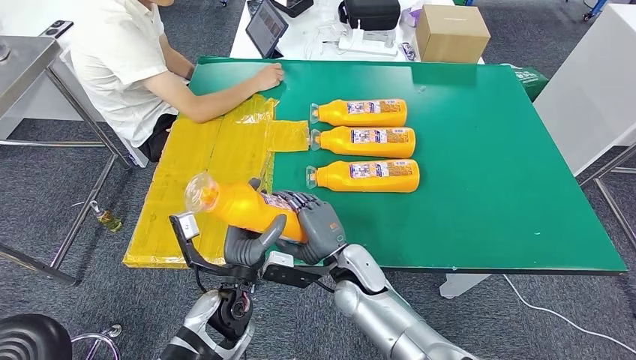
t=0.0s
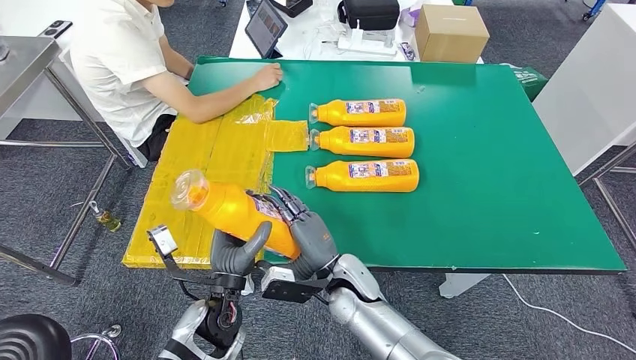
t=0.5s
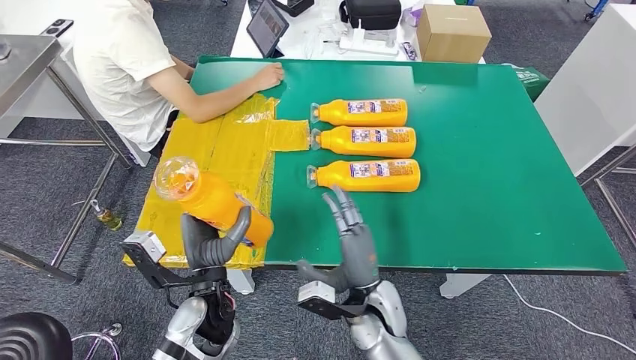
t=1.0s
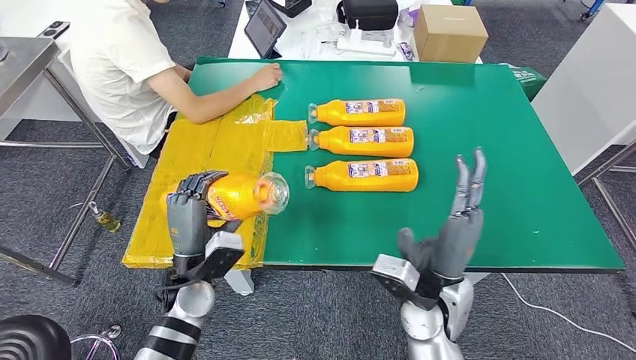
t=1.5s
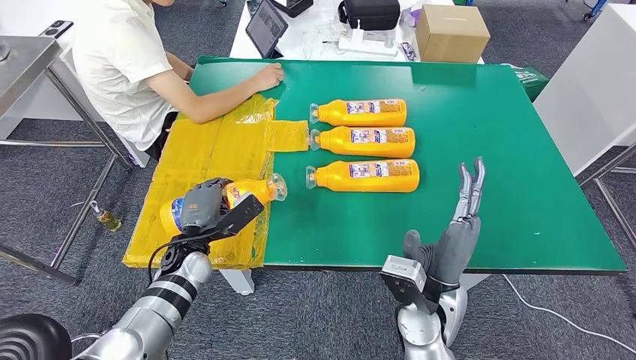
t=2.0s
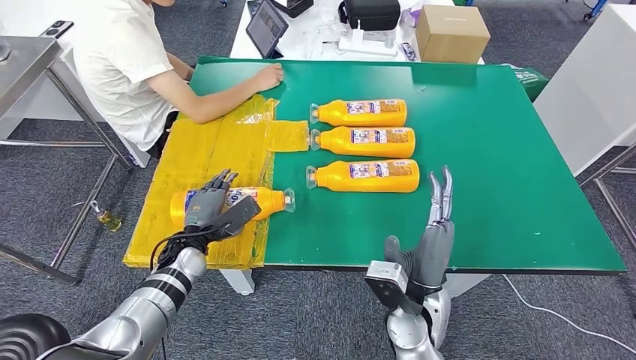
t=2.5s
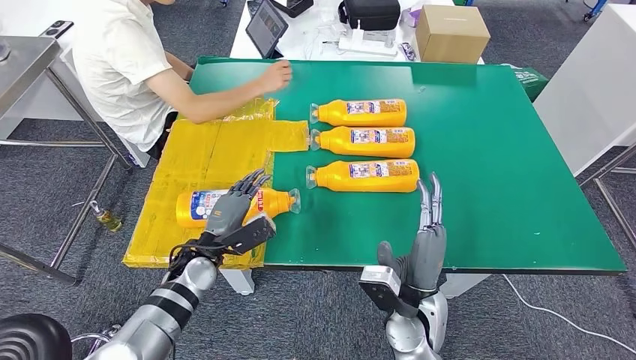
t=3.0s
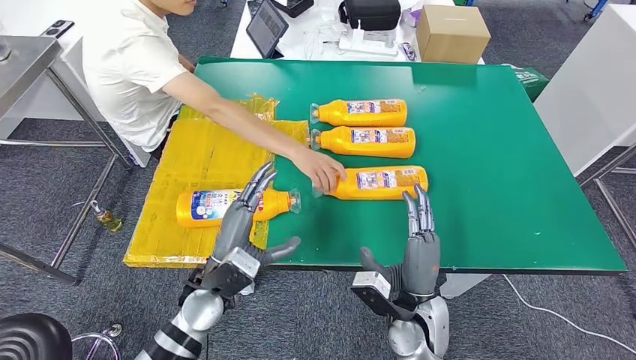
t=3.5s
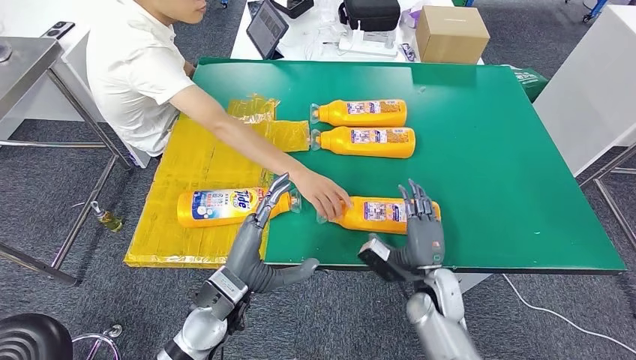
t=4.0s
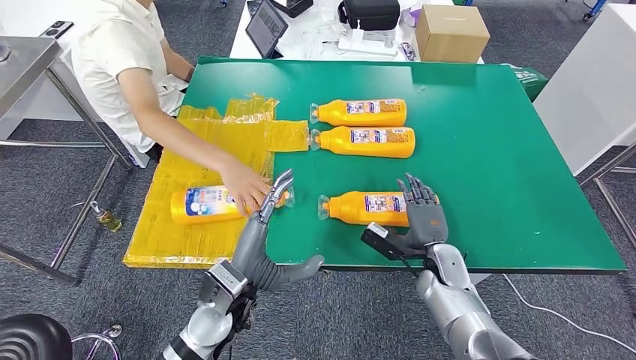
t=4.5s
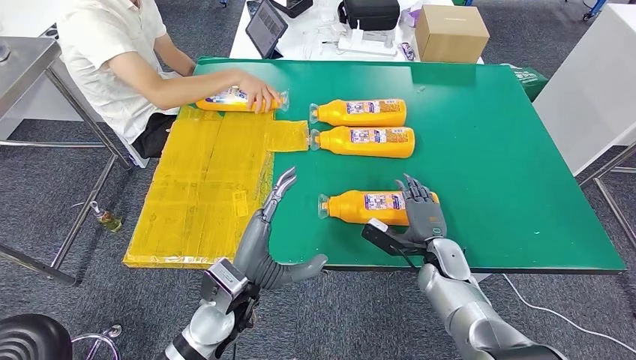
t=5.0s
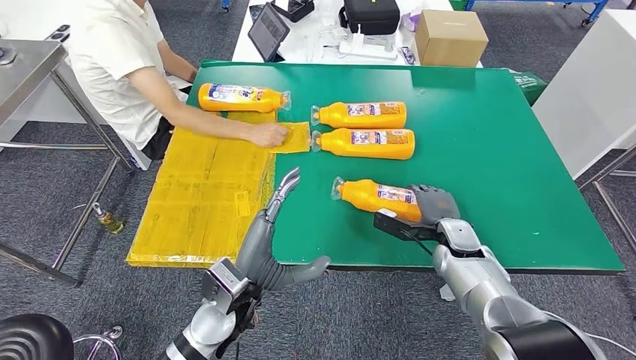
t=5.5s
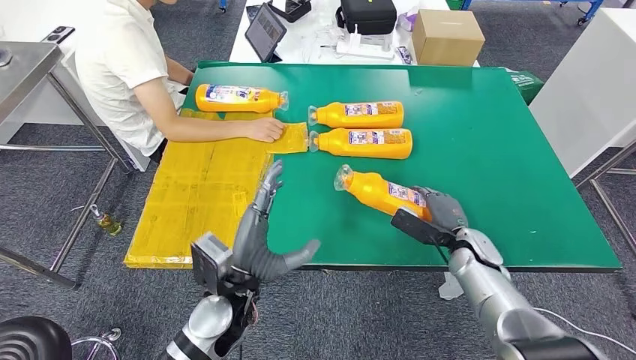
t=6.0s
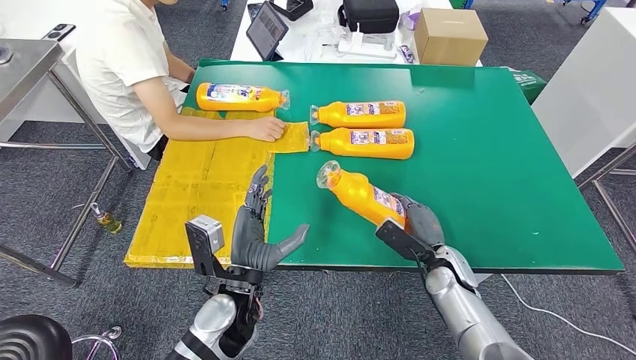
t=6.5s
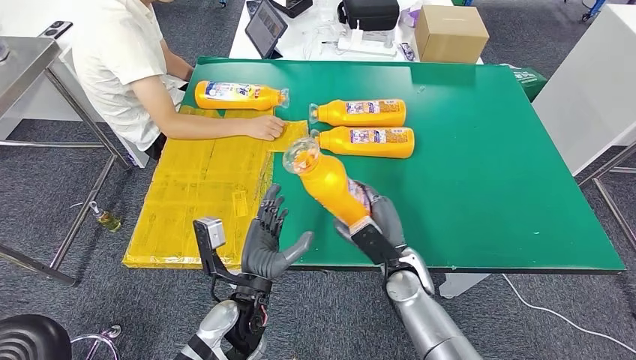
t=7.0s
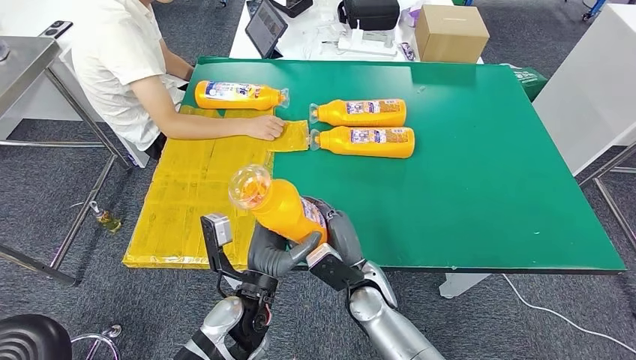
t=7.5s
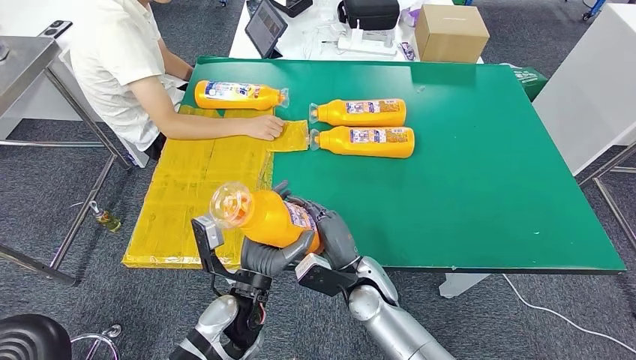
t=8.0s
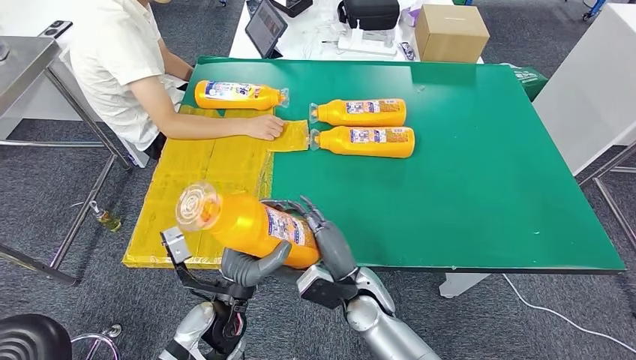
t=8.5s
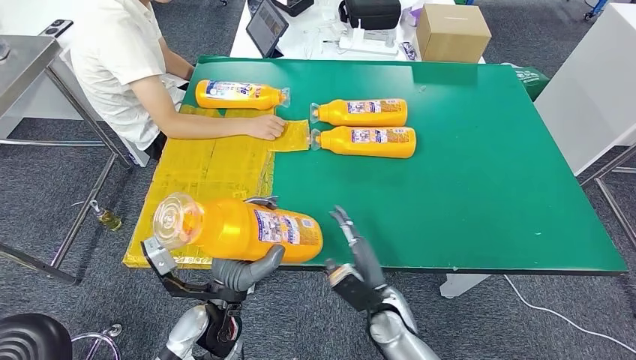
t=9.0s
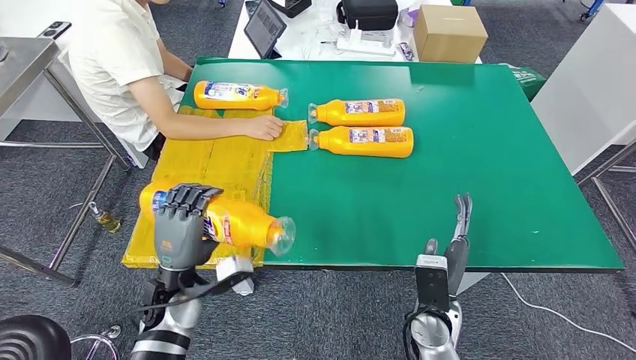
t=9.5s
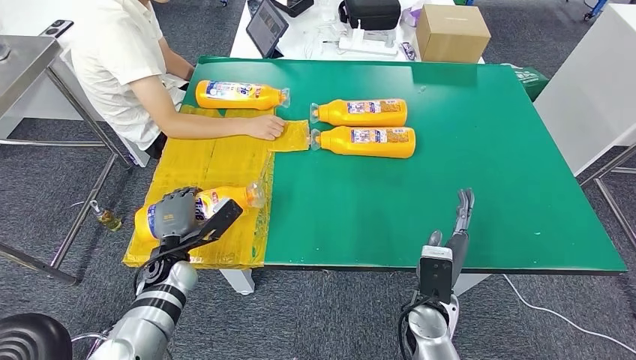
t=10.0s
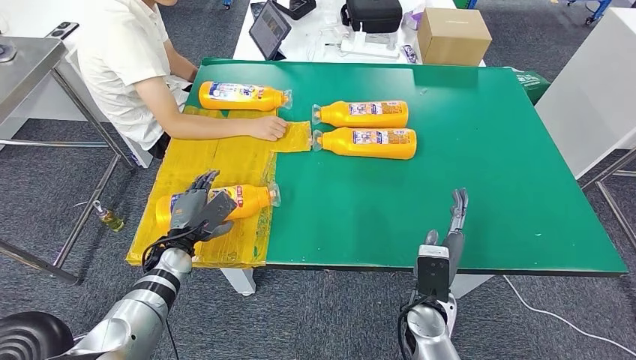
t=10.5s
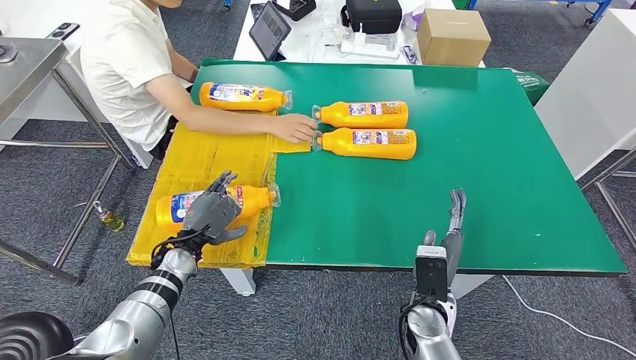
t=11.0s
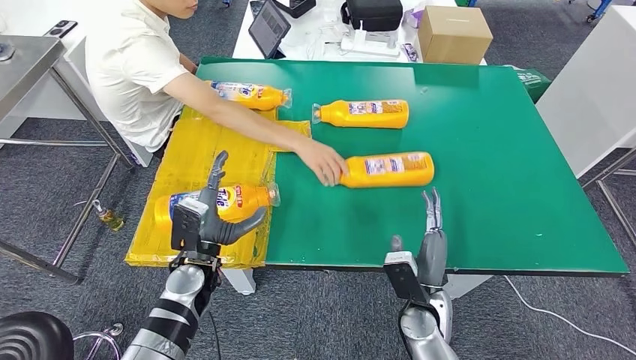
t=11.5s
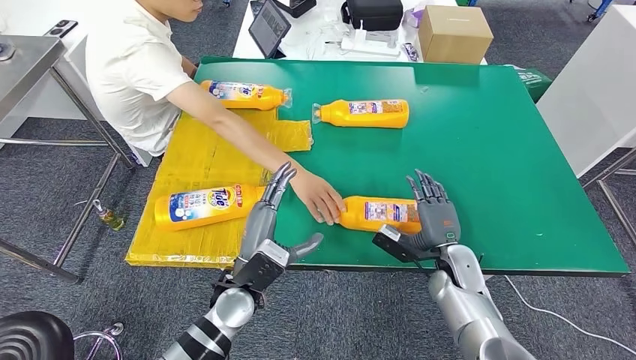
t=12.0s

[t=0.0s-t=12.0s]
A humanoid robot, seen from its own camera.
Step, t=0.0s to t=2.5s: Flip the fast-moving consumer goods bottle to the front side.
Step, t=3.0s to t=6.0s: Pick up the fast-moving consumer goods bottle from the table.
Step, t=7.0s to t=11.5s: Flip the fast-moving consumer goods bottle to the front side.
t=0.0s to t=2.0s: The left hand heads to the left and forward, covering approximately 15 cm, while the right hand heads to the right, upward and backward, covering roughly 15 cm.
t=8.0s to t=10.0s: The left hand travels to the left and forward by roughly 20 cm. Meanwhile the right hand goes approximately 10 cm to the right.

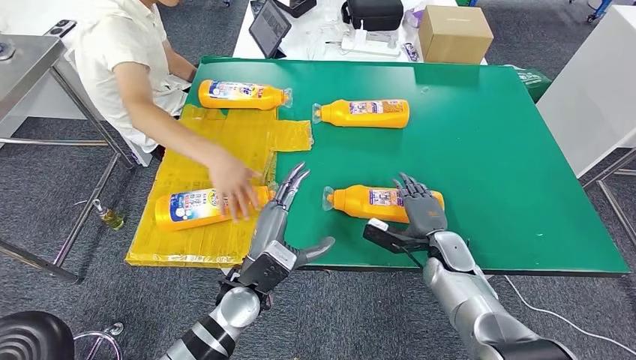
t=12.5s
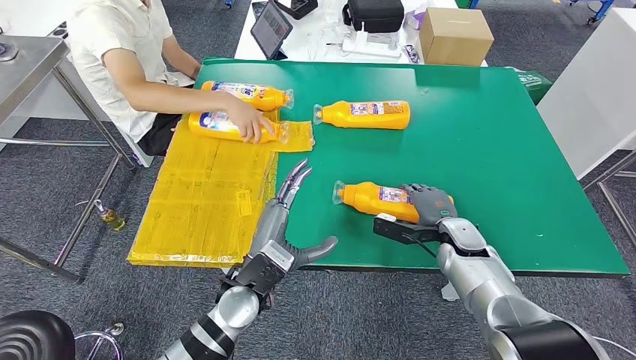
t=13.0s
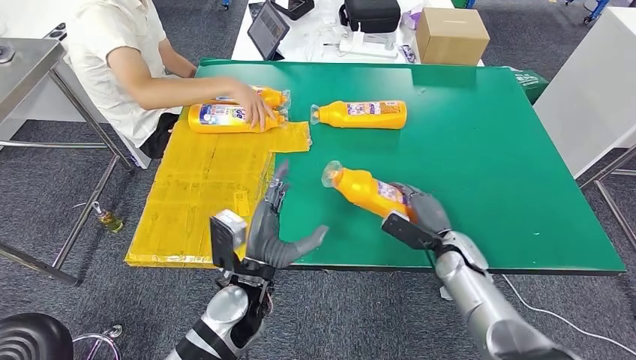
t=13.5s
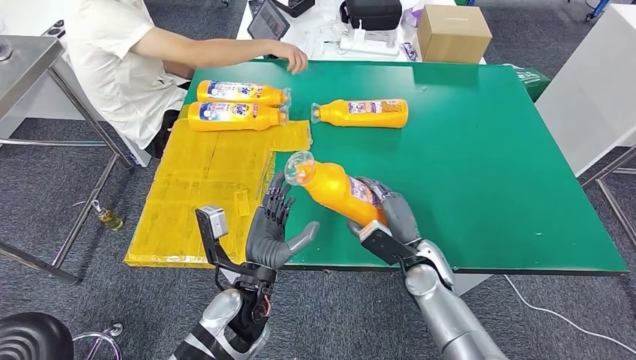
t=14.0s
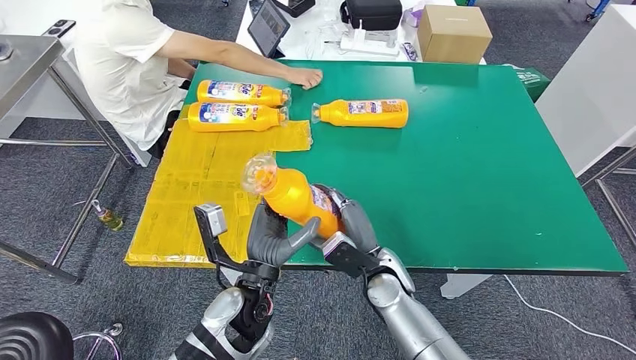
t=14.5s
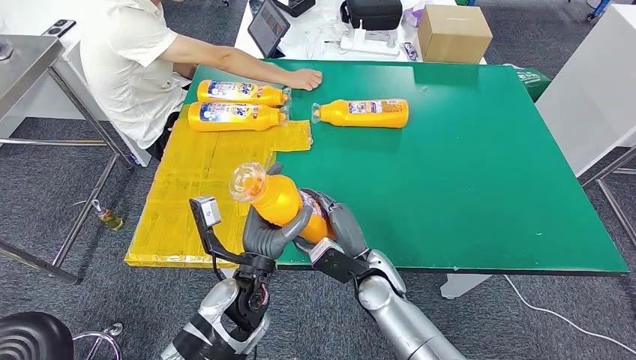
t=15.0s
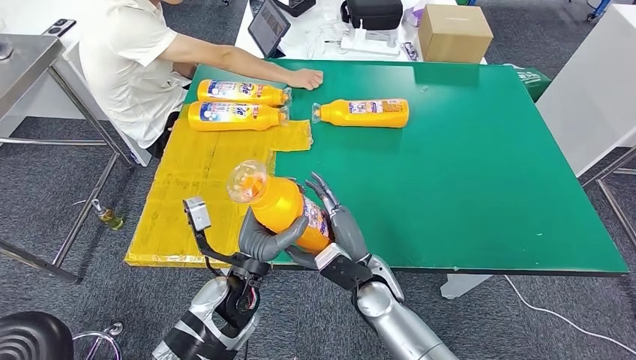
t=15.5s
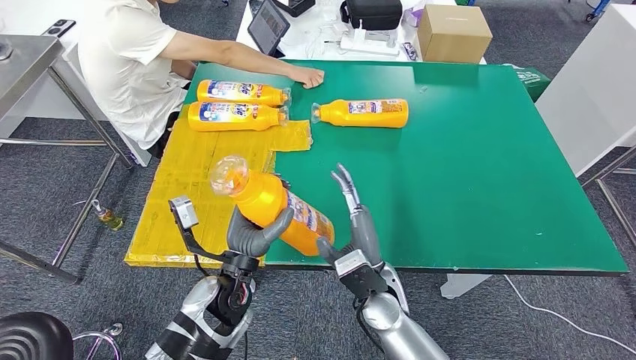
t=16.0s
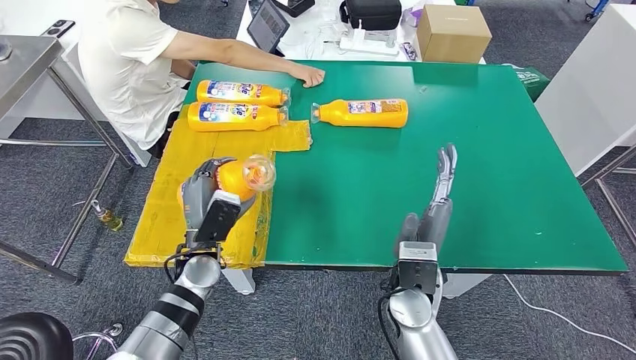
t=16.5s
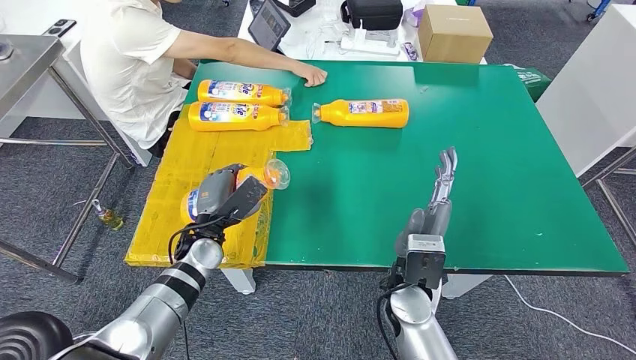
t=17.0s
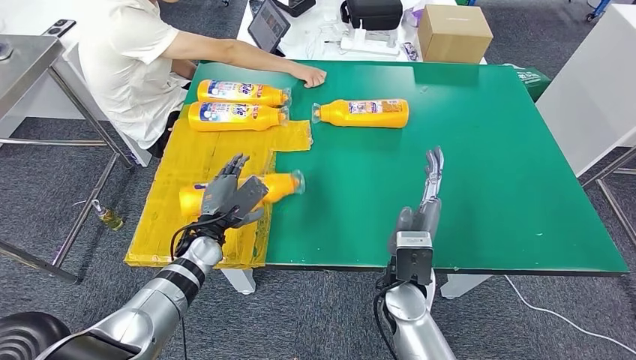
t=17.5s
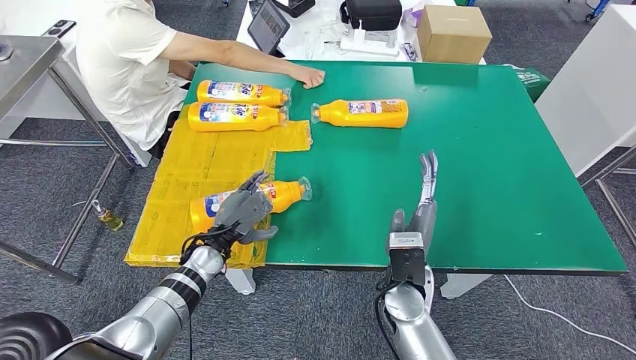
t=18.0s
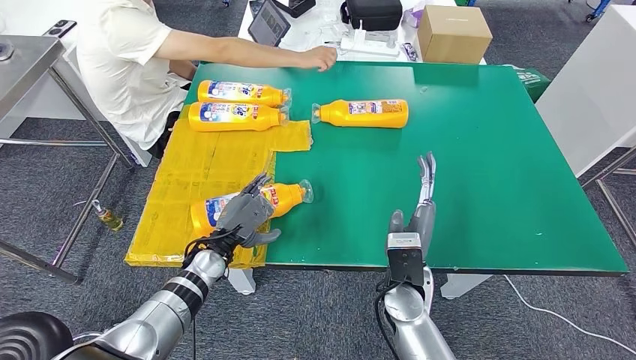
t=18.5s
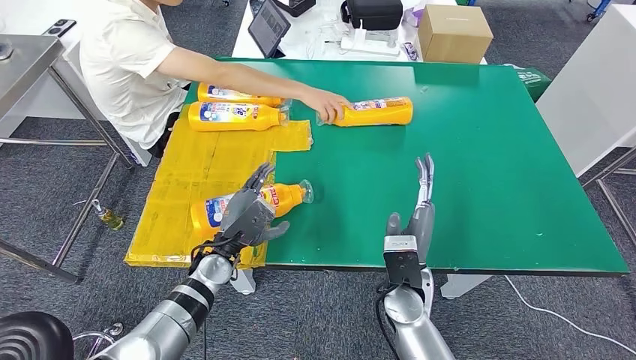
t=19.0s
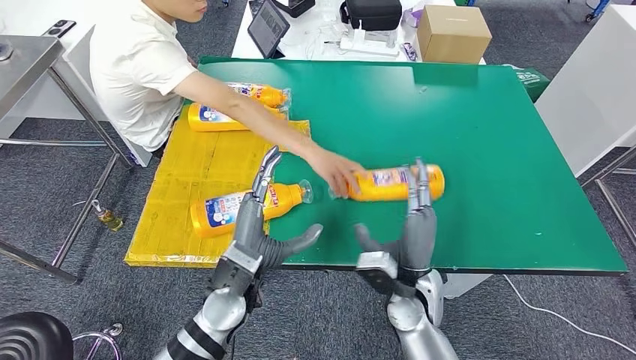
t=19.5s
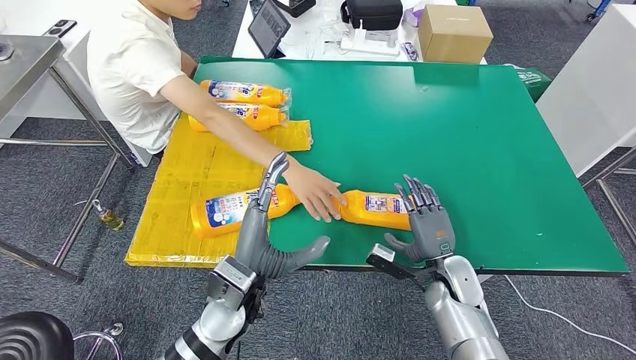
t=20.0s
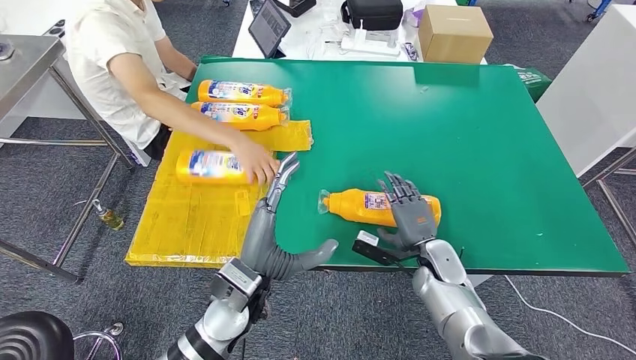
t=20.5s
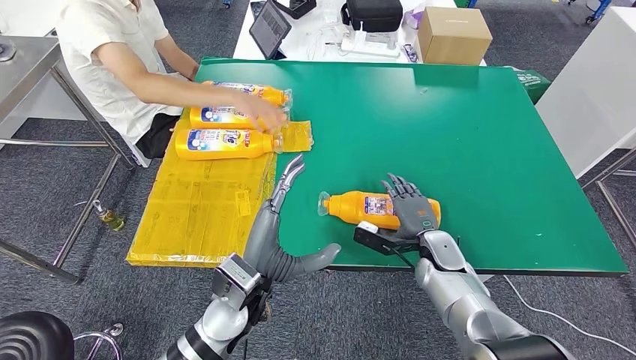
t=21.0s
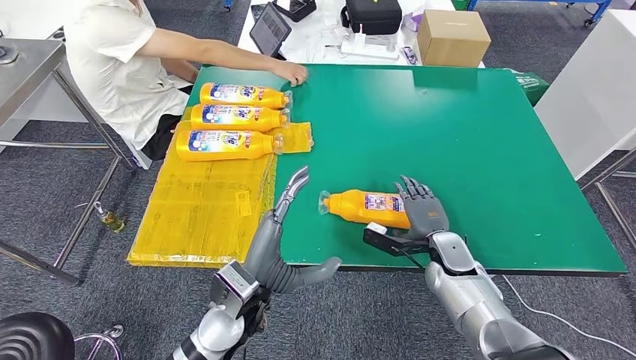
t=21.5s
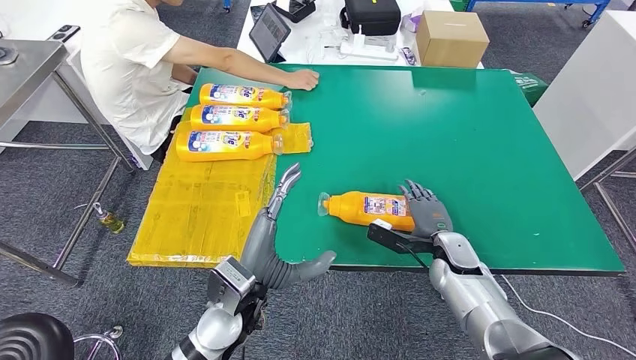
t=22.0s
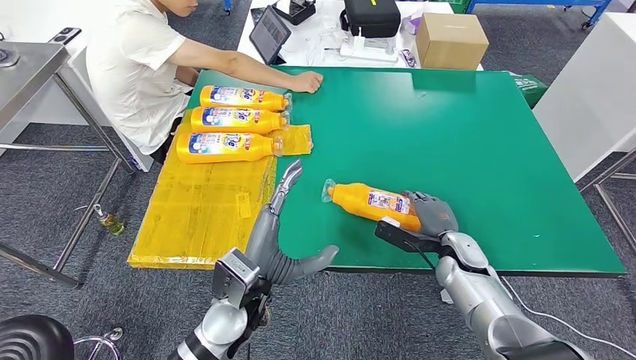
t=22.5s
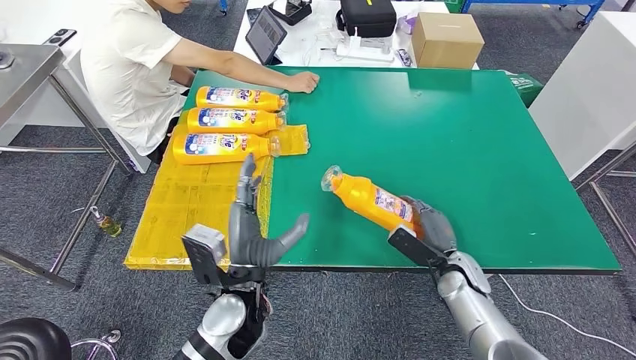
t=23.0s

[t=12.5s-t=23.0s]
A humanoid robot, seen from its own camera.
Step, t=12.5s to t=15.0s: Pick up the fast-moving consumer goods bottle from the table.
Step, t=15.5s to t=18.5s: Flip the fast-moving consumer goods bottle to the front side.
t=14.5s to t=16.5s: The left hand heads to the left and forward, covering roughly 15 cm. The right hand is displaced upward by about 5 cm.
